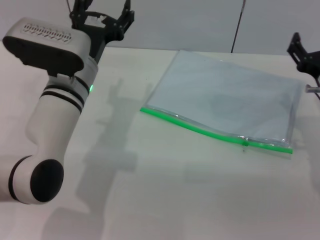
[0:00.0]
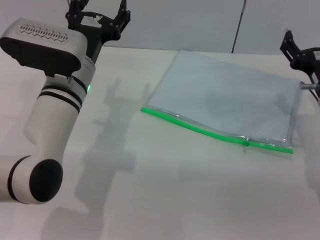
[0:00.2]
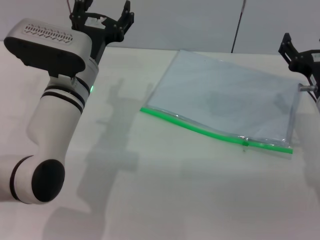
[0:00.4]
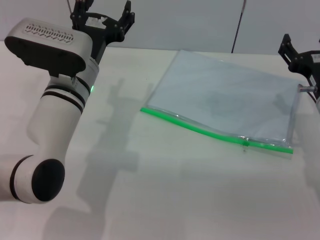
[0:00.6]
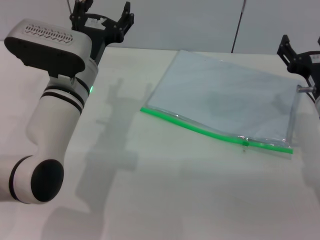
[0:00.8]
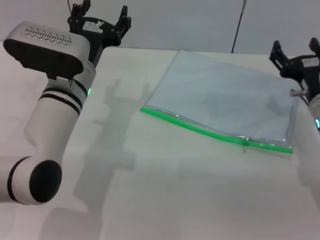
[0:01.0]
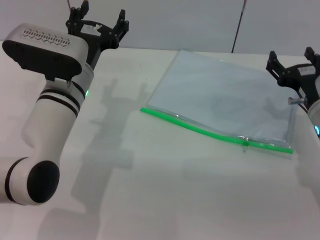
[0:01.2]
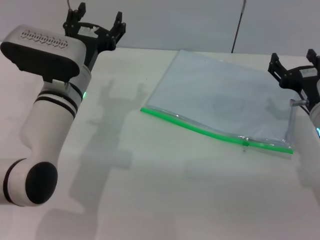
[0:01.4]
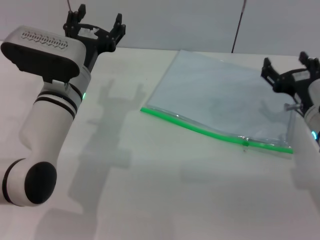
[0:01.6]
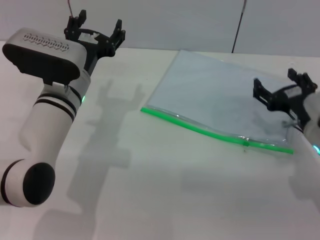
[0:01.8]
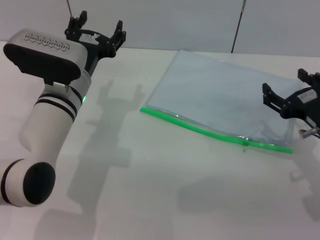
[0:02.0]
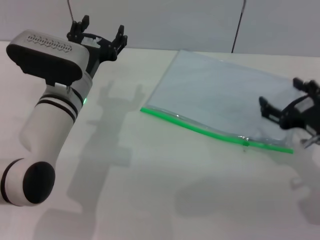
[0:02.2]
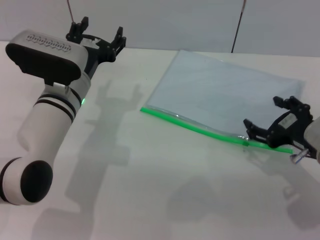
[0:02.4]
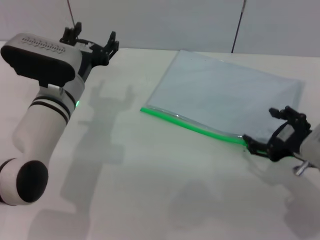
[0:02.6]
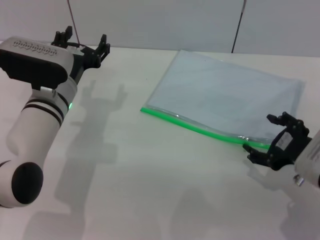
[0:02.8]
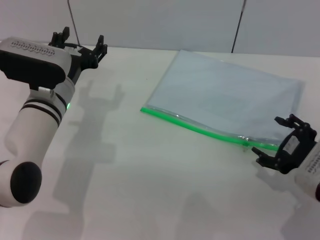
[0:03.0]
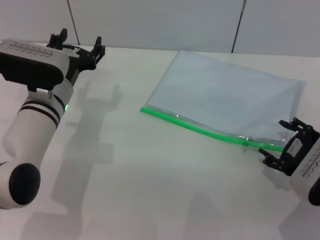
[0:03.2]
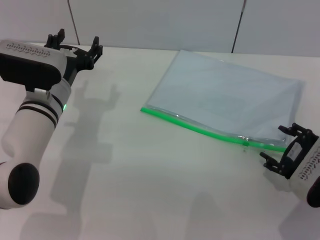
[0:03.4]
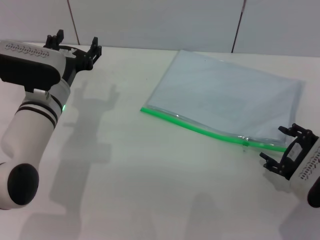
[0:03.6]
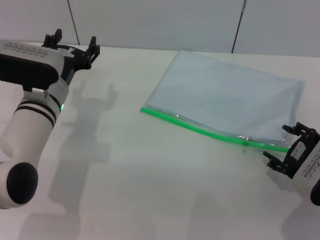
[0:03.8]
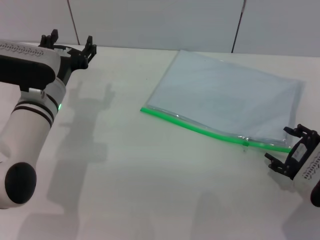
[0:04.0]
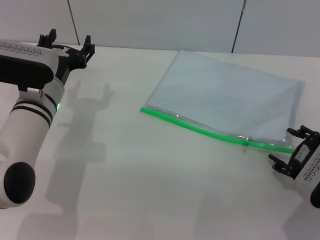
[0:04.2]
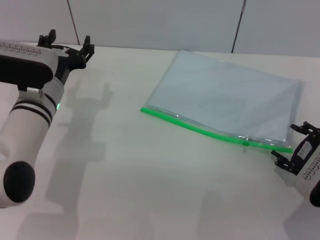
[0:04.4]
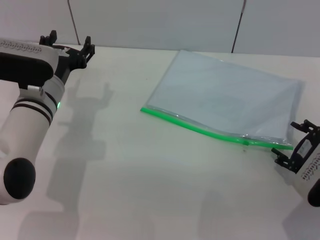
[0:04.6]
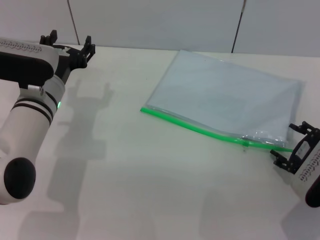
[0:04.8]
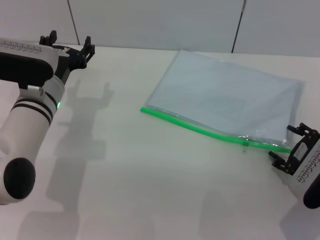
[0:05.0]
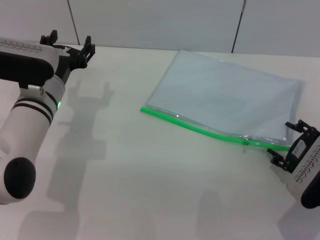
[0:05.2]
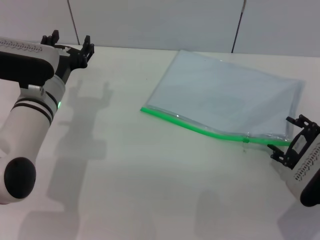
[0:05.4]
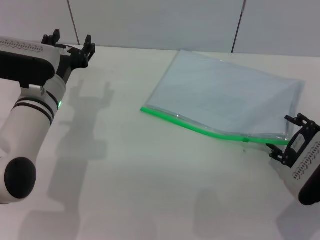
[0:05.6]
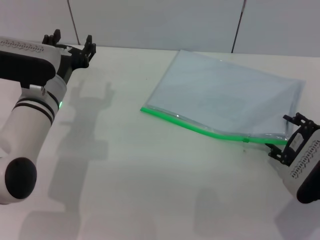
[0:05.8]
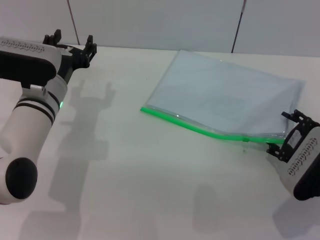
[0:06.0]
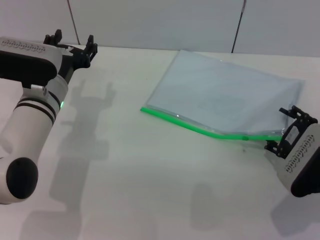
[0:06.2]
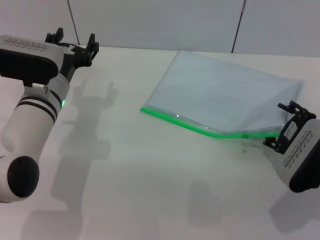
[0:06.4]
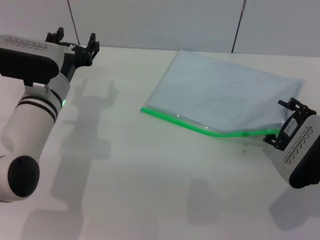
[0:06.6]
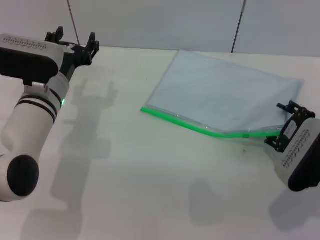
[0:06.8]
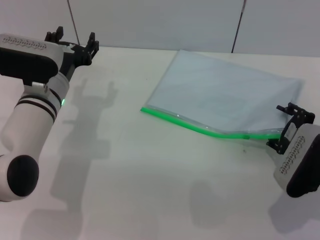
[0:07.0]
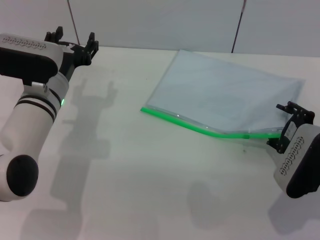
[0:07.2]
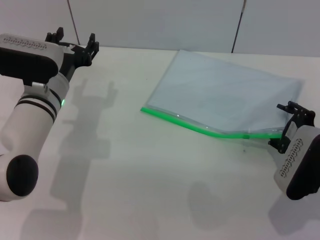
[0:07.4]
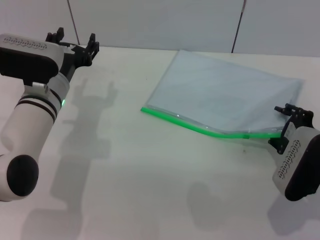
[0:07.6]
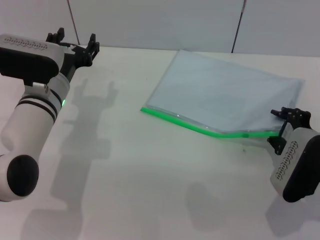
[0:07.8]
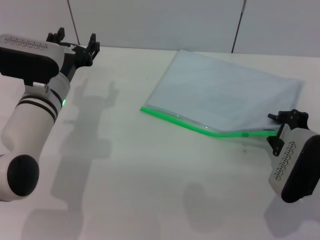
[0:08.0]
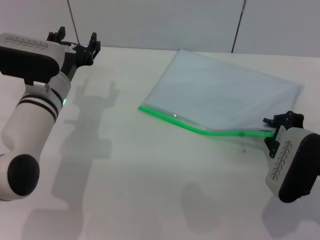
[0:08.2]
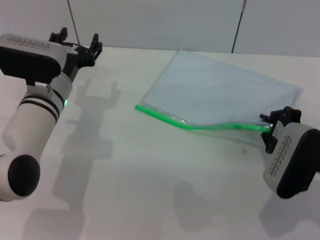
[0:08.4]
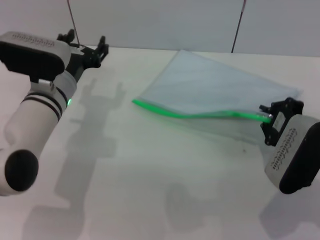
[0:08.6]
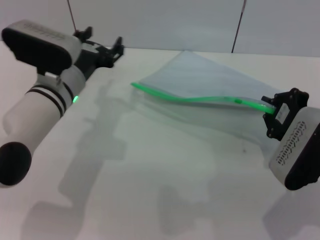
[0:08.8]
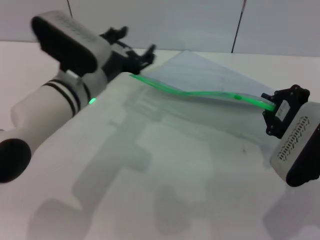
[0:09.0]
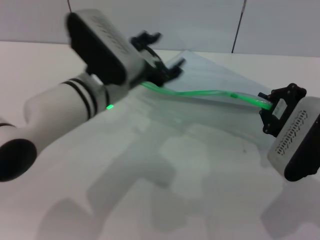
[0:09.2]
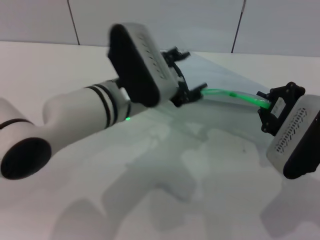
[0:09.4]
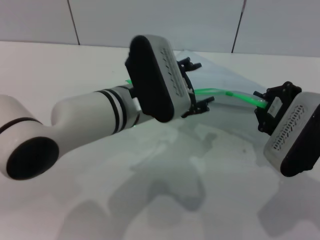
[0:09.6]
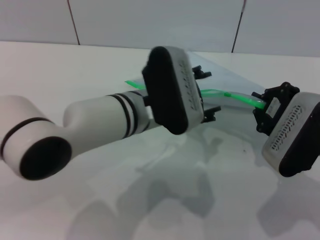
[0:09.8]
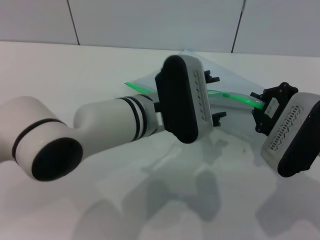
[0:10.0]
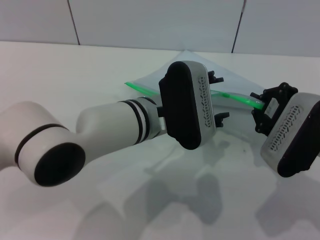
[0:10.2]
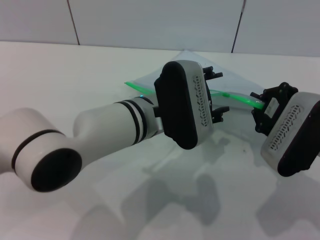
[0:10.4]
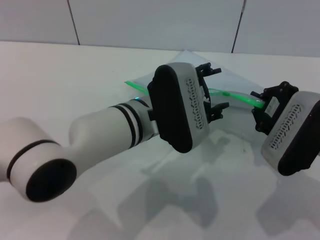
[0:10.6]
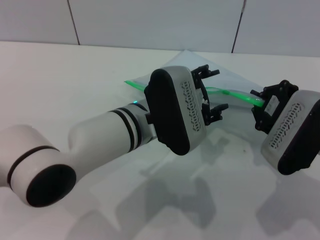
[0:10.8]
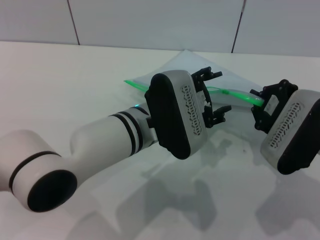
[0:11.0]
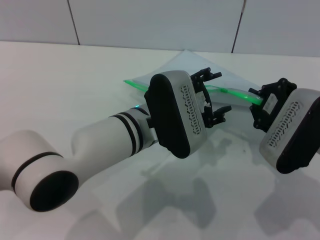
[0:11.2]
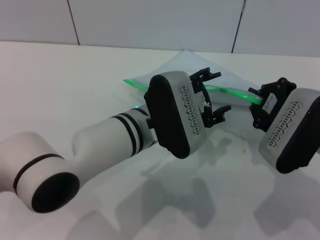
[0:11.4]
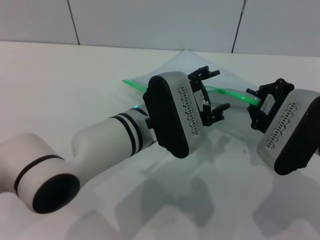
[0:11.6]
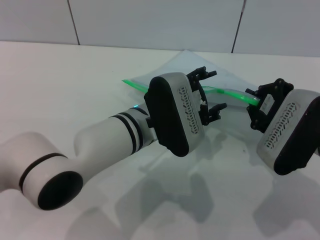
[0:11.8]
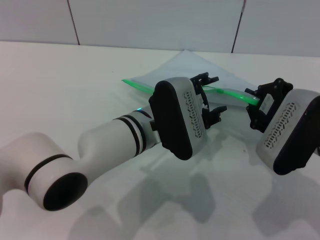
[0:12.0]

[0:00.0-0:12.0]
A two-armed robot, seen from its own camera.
Step, 0:00.0 to 0:08.8: Pick up the transparent plastic bag with the right gripper.
0:00.0 to 0:01.6: There are only small adjustments of the grippers.
0:01.6 to 0:03.0: The right gripper heads backward, covering about 10 cm.
0:03.0 to 0:06.0: The grippers stay close to where they were, moving slightly.
0:06.0 to 0:07.6: The grippers make only small movements.
0:07.6 to 0:09.0: The left gripper ends up roughly 5 cm from where it was, while the right gripper is displaced upward by approximately 5 cm, and closes its fingers.
0:09.0 to 0:10.4: The left gripper goes some 10 cm to the right.
0:10.4 to 0:12.0: The grippers move only a little.

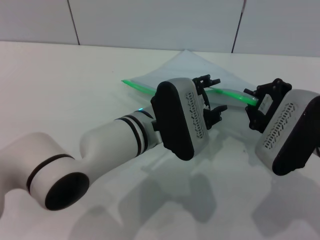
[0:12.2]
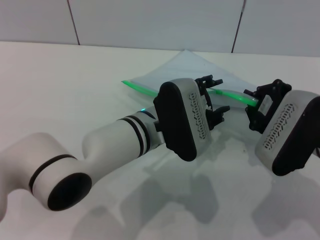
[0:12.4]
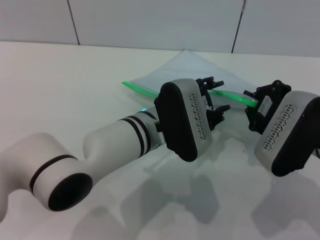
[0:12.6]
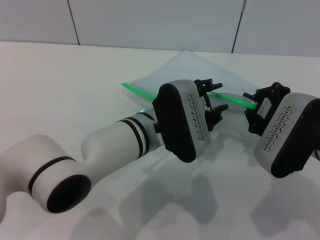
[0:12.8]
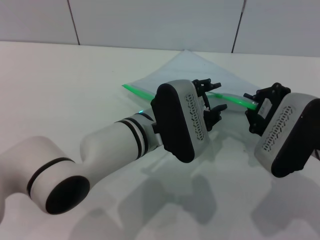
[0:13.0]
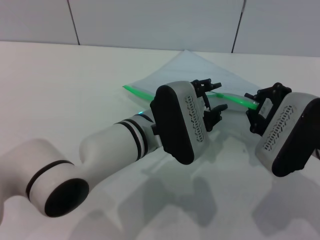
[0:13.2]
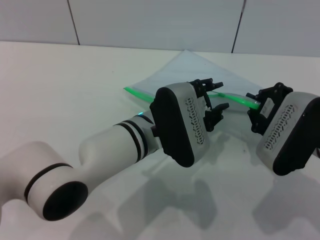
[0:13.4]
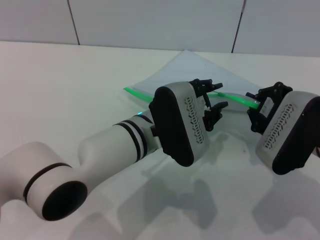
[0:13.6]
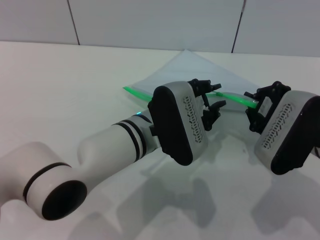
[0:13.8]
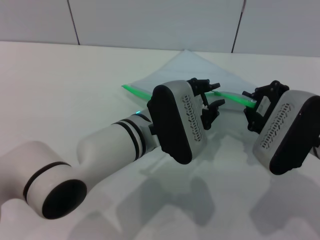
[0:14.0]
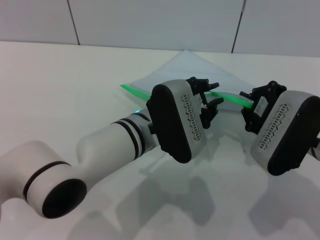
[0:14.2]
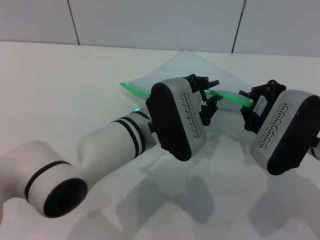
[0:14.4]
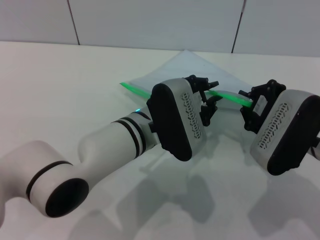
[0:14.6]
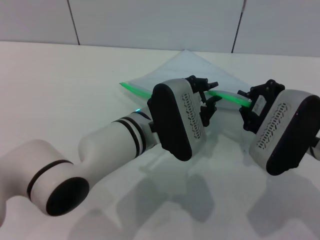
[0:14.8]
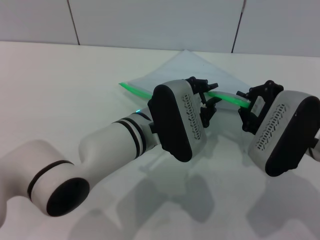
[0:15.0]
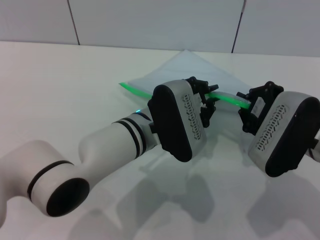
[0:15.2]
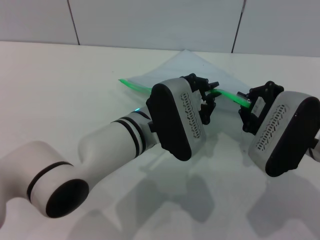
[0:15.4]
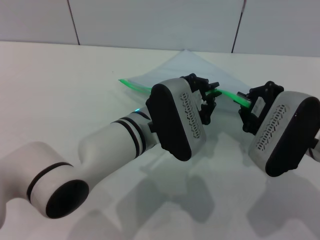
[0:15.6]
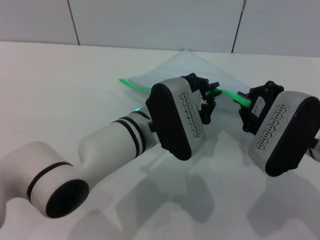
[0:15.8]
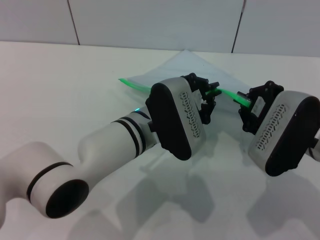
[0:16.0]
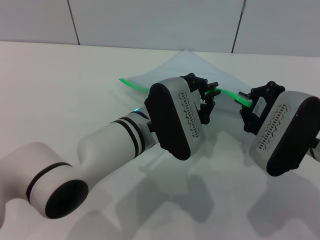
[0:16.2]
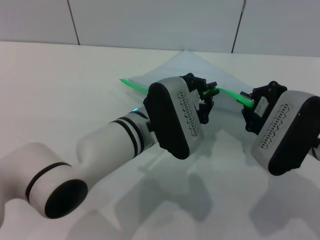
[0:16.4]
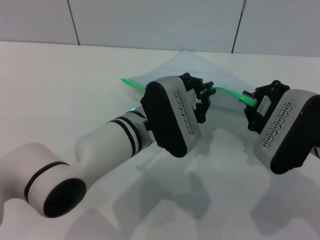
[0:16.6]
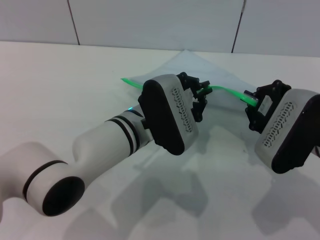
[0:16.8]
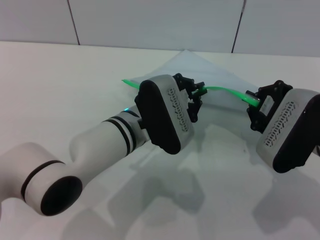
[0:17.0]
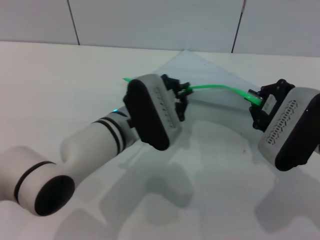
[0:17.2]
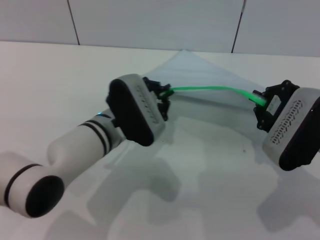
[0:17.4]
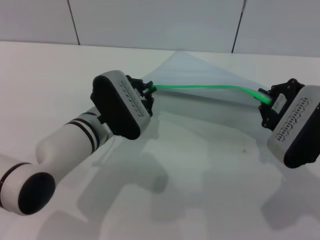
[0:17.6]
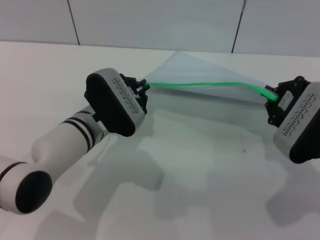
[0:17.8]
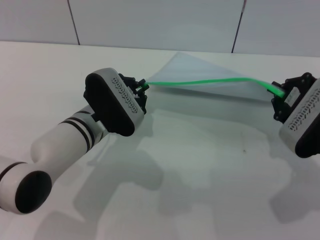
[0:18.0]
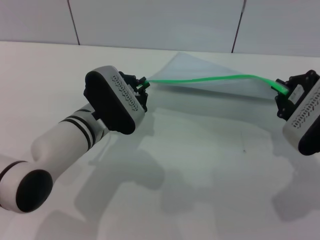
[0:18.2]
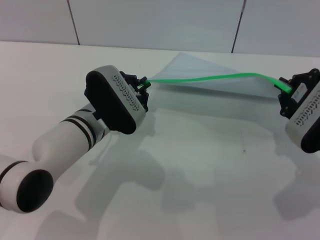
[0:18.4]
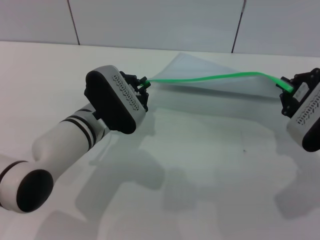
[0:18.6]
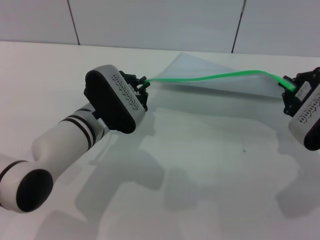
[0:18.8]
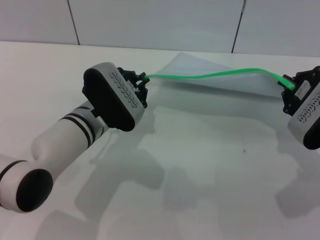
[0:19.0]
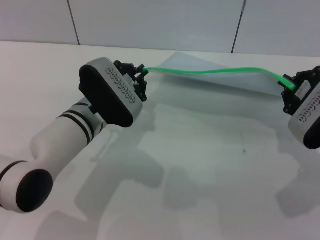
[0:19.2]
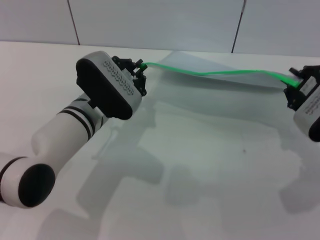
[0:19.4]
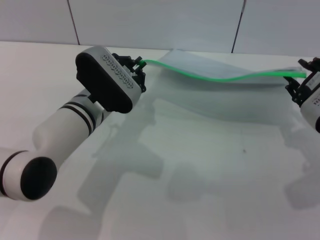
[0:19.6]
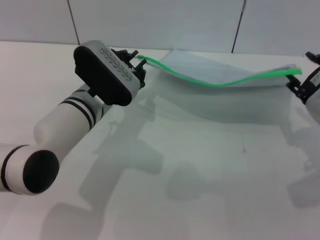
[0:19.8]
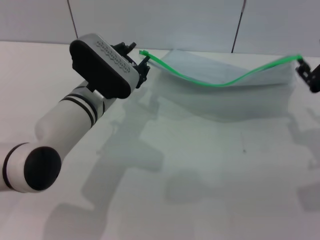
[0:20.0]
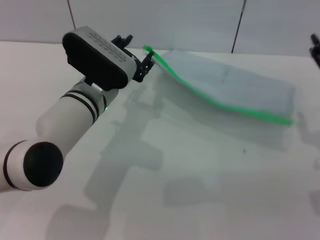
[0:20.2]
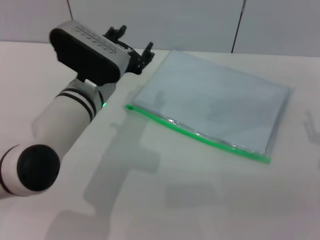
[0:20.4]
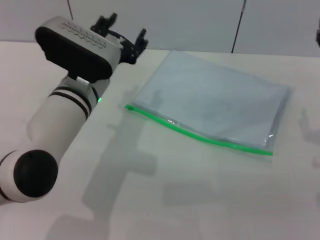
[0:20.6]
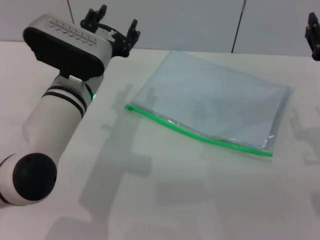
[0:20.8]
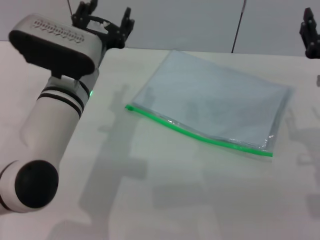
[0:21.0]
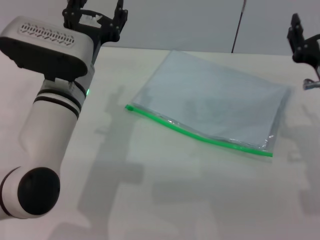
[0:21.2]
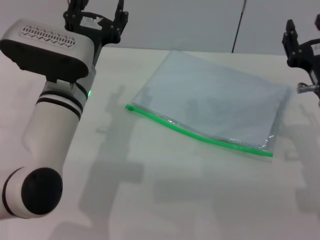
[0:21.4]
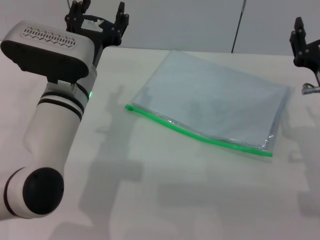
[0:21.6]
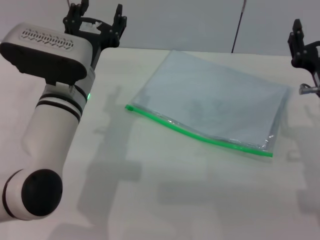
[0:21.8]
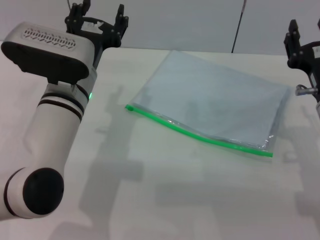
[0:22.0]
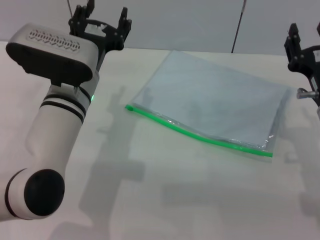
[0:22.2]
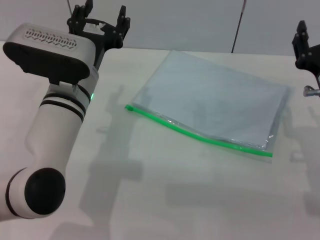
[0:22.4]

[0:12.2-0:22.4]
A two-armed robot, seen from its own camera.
Step, 0:12.2 to 0:19.8: Pulling up the zipper on the transparent plastic bag with the left gripper to close it.
Step, 0:20.2 to 0:21.2: Place the transparent plastic bag.
0:12.2 to 0:15.2: Both grippers stay put.
0:15.2 to 0:16.6: Neither gripper changes place.
0:16.6 to 0:18.0: The left gripper goes some 10 cm to the left.
0:18.0 to 0:19.4: The grippers move only a little.
0:19.4 to 0:21.0: The left gripper opens; the right gripper opens its fingers.
0:21.0 to 0:22.4: The grippers make only small movements.
